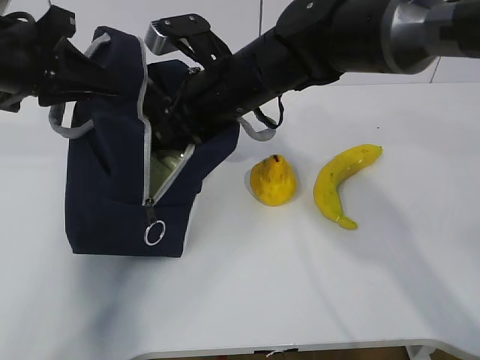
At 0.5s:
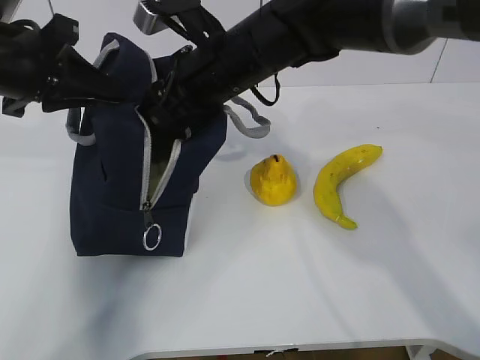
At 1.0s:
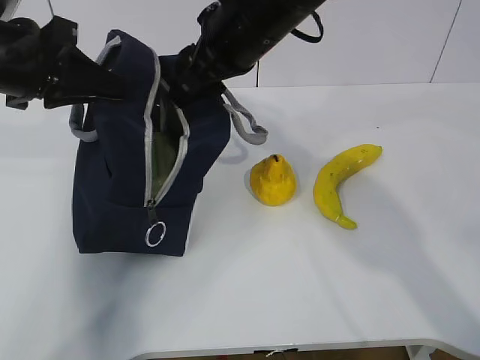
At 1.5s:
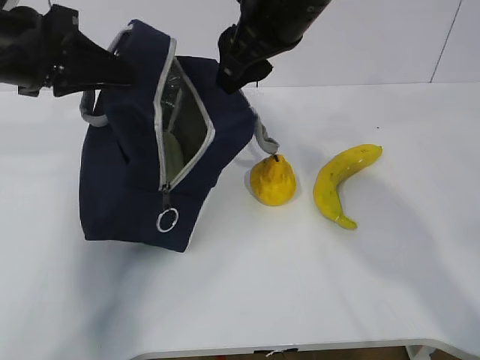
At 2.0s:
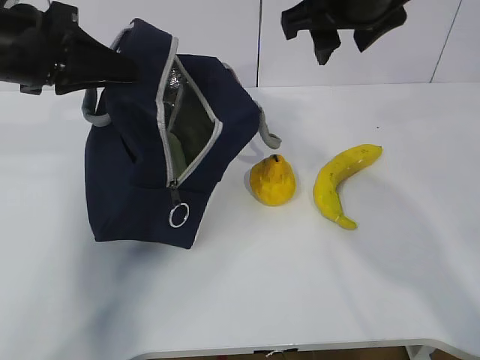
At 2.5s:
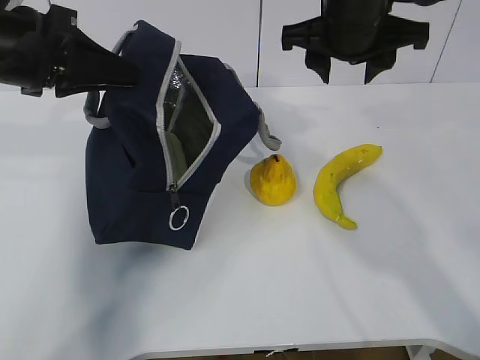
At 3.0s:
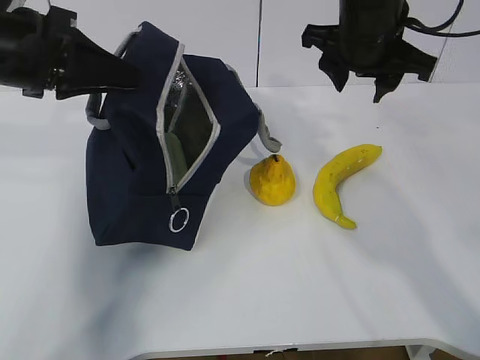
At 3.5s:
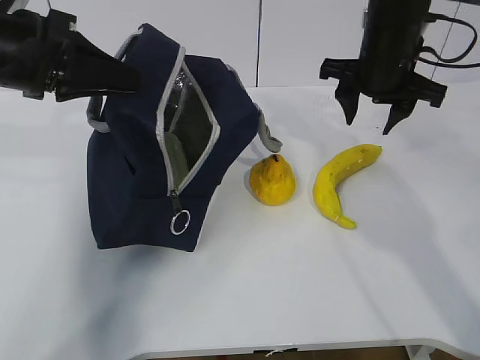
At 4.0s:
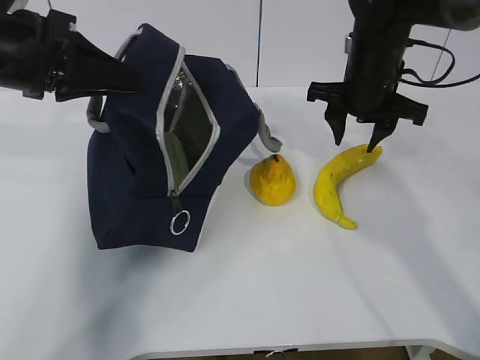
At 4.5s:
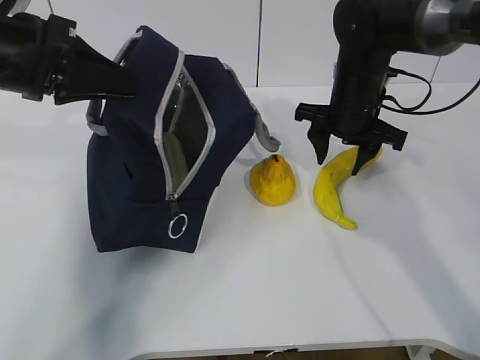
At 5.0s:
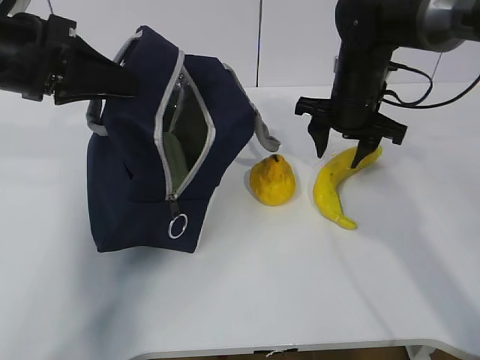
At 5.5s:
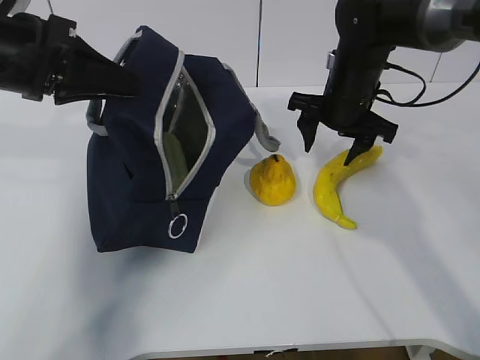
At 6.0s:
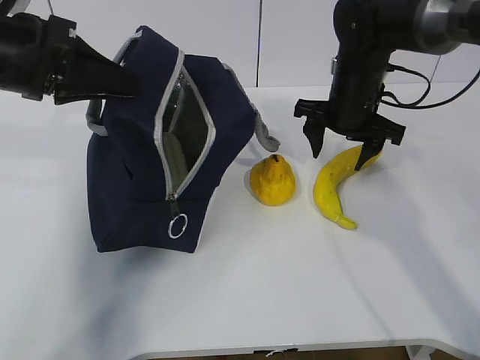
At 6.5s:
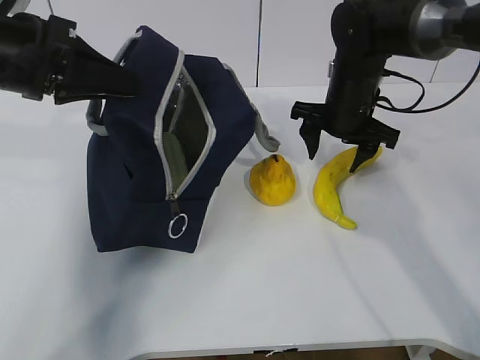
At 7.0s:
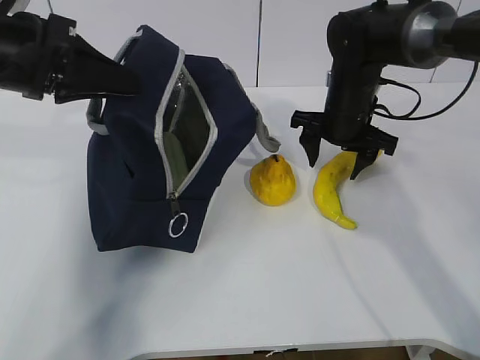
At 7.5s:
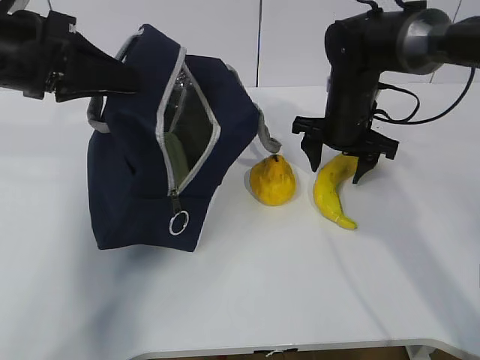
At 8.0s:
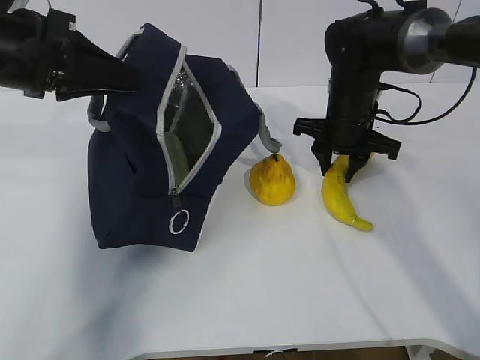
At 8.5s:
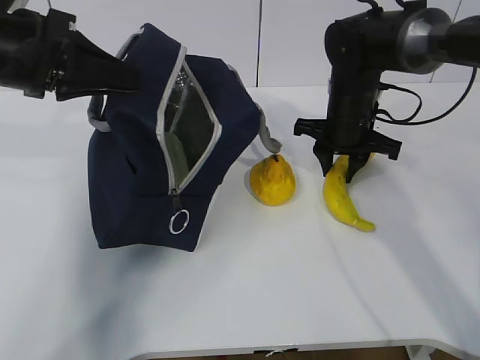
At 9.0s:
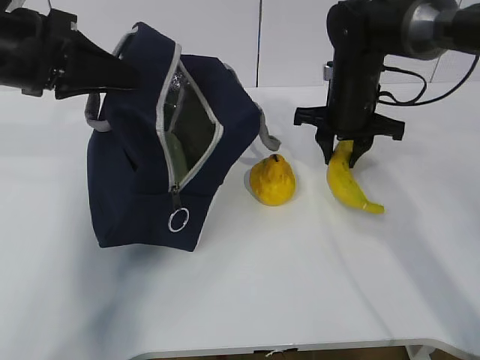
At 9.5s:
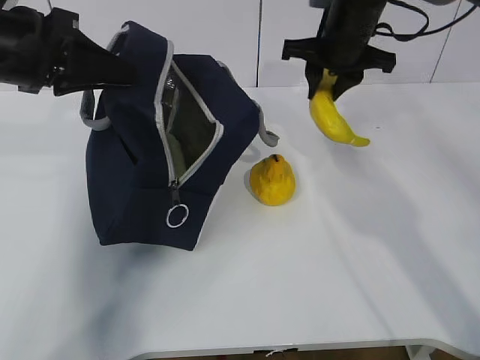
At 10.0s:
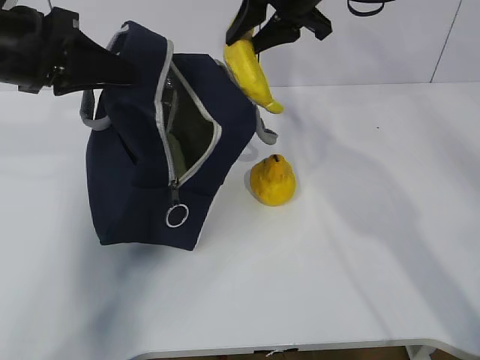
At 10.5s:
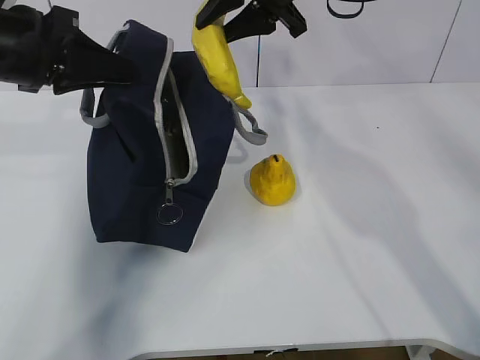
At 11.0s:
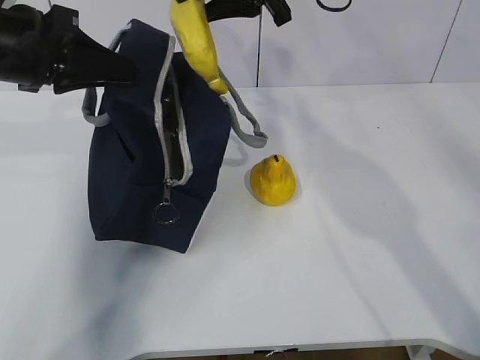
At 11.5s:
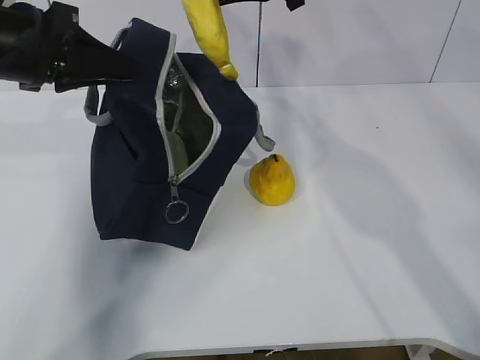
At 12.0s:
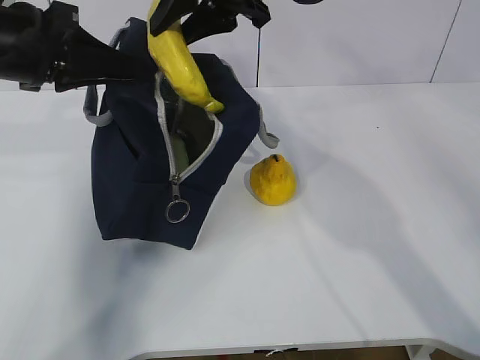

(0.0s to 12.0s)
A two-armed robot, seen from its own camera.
Step, 0.0s - 3.5s: Grab the banana with your right hand.
Step, 4.5s - 8.0s: Place it into the bag with your right hand.
0.0s - 2.0s: The right gripper shifts roughly 15 cm upward and to the right.
2.0s - 4.0s: The right gripper shifts approximately 15 cm downward, forward and to the right.
4.0s - 6.0s: The grippers make only small movements.
6.0s - 8.0s: The right gripper closes its fingers.
8.0s - 10.0s: The right gripper travels upward by some 15 cm.
10.0s - 12.0s: The right gripper heads to the left, covering some 5 cm.

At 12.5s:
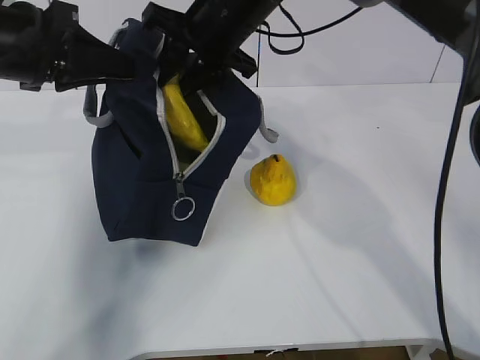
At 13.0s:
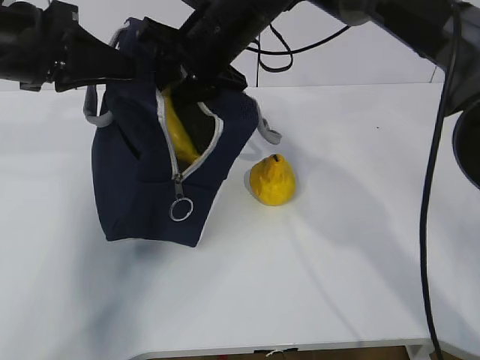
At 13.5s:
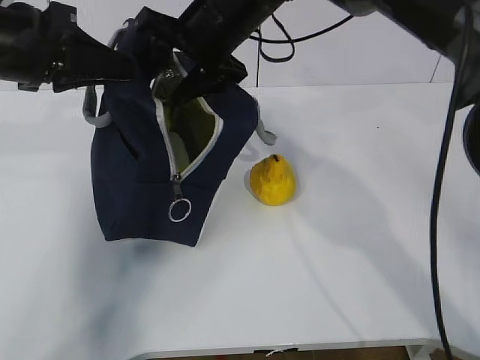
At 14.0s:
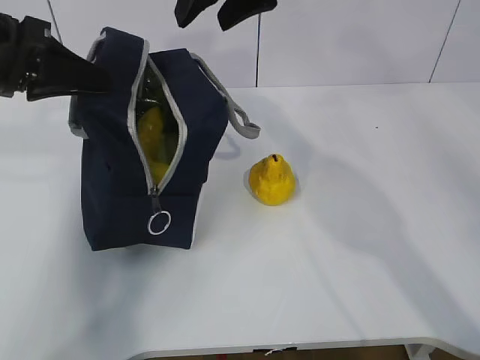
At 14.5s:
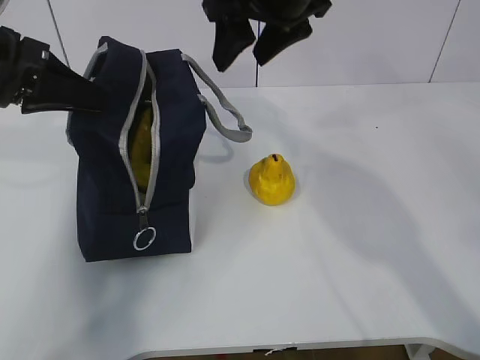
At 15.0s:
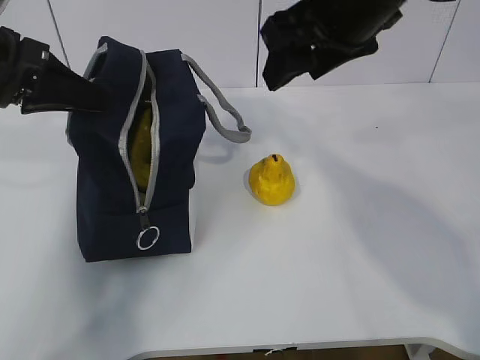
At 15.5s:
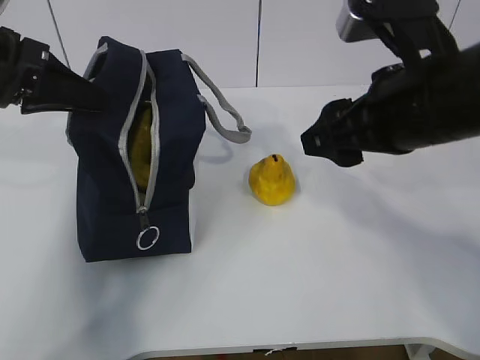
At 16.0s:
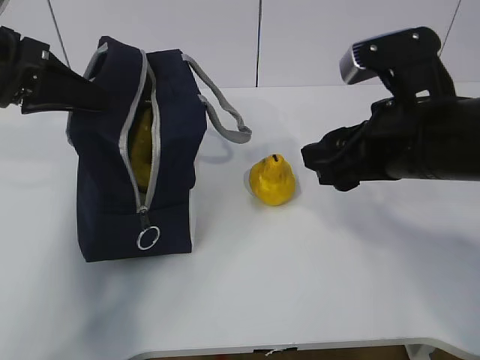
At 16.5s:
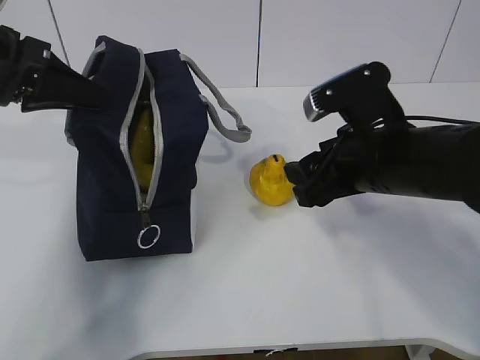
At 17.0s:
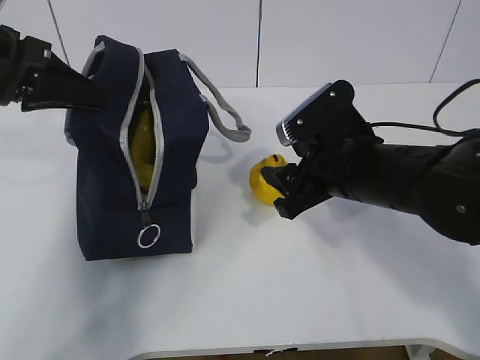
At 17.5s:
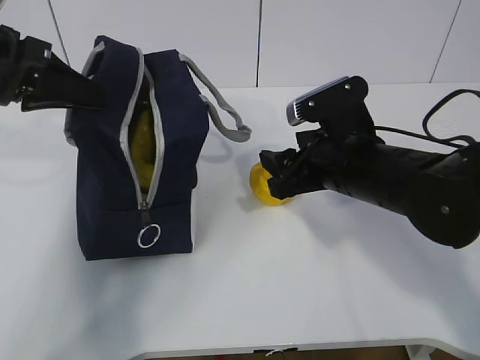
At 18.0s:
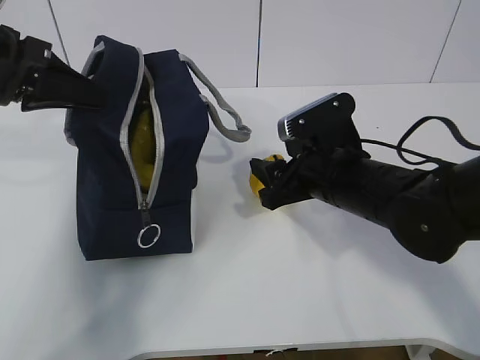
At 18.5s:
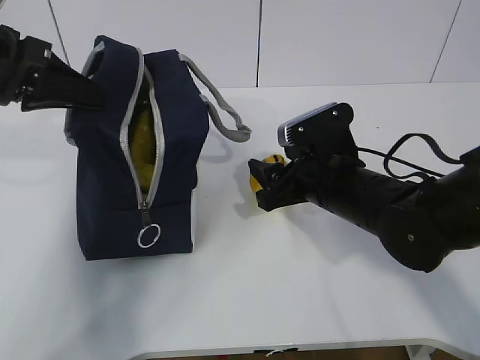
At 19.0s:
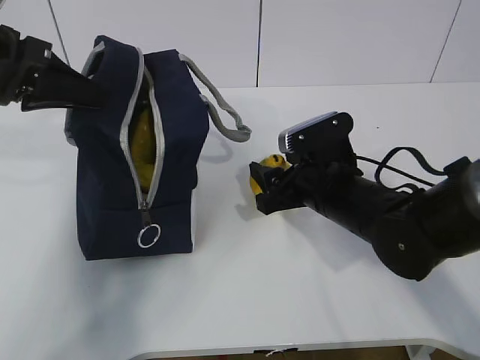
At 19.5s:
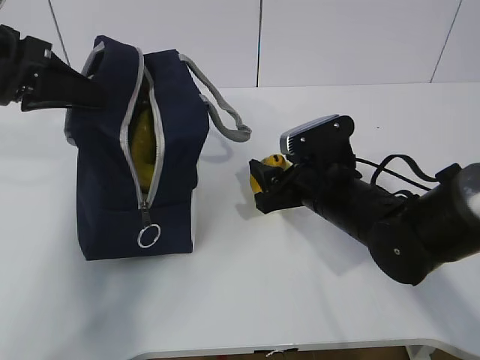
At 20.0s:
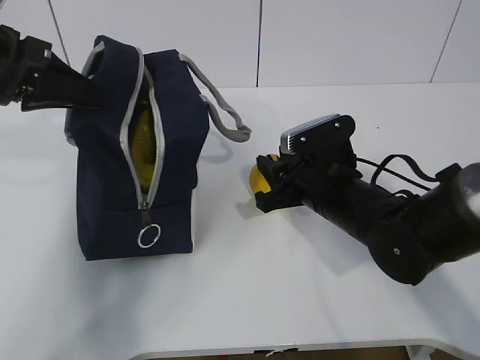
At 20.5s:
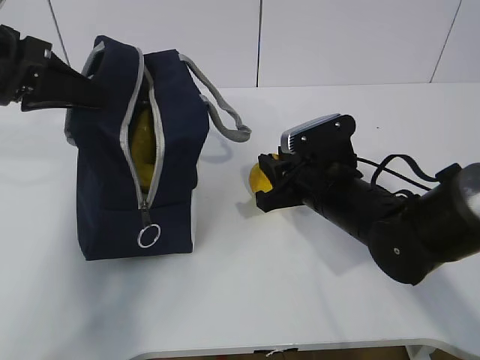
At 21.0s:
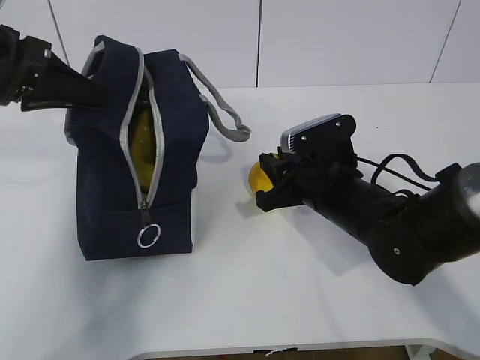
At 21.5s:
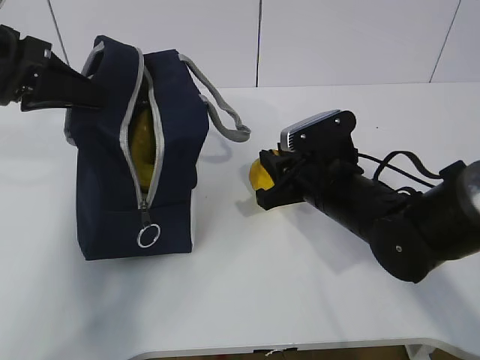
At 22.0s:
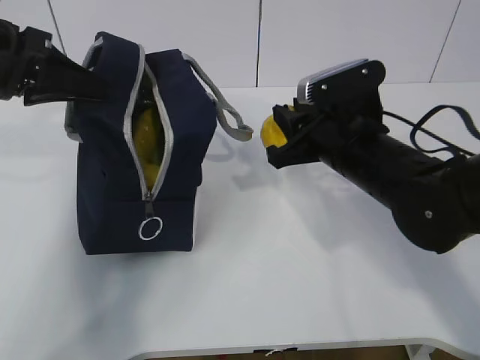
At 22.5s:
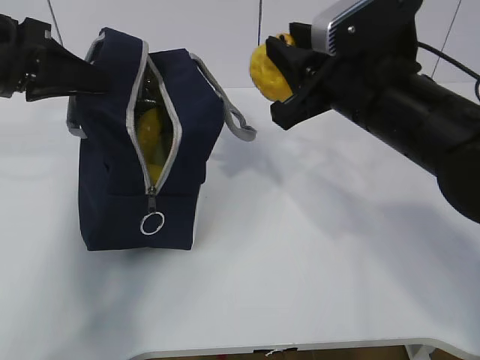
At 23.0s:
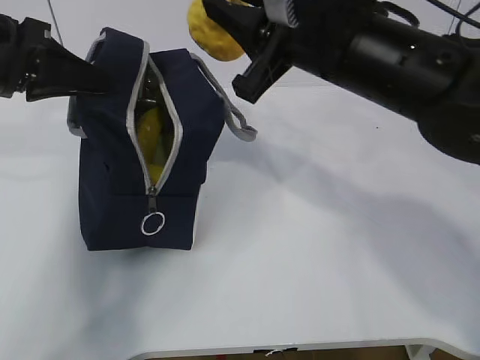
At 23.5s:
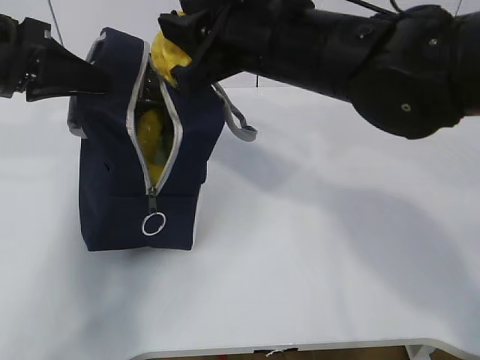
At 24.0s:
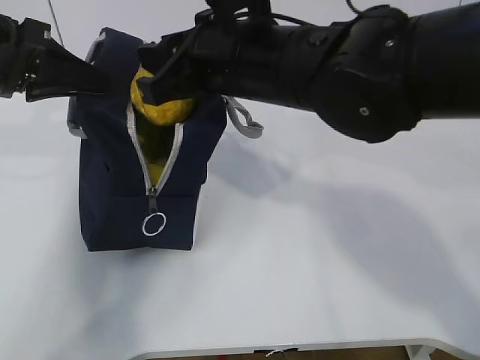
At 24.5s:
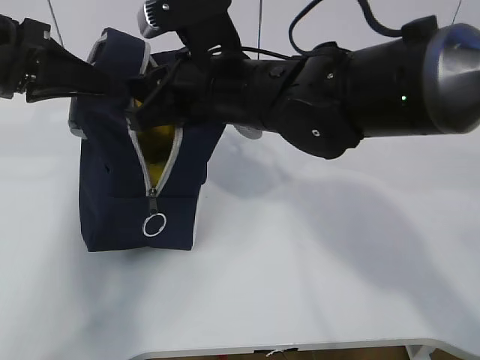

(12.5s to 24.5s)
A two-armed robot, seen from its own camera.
Step, 18.0s - 20.0s: Grab the lunch bag with your right hand.
Step, 20.5s - 24.0s: Move the lunch bag to the right.
12.5s - 14.5s: The right gripper is displaced upward and to the right by approximately 5 cm, and opens up.
14.5s - 16.5s: The right gripper is displaced downward, backward and to the right by roughly 20 cm.
16.5s - 18.5s: The right gripper is displaced downward by about 5 cm.
18.5s - 20.5s: The right gripper closes its fingers.
20.5s - 22.5s: The right gripper moves upward, about 15 cm.
22.5s - 24.5s: The right gripper is displaced to the left by approximately 10 cm.

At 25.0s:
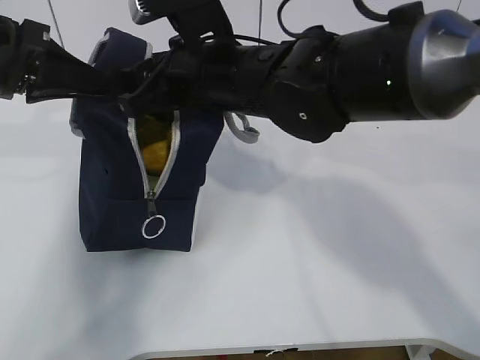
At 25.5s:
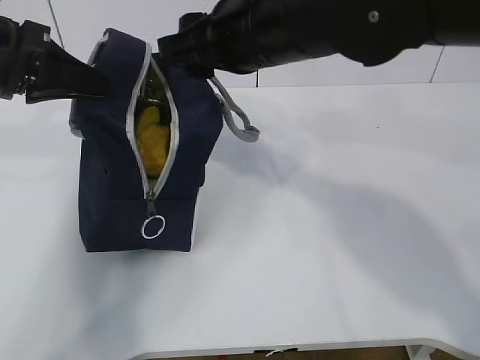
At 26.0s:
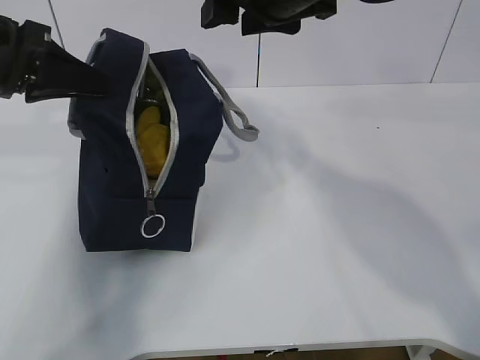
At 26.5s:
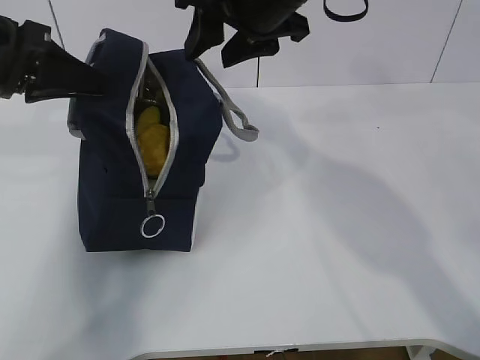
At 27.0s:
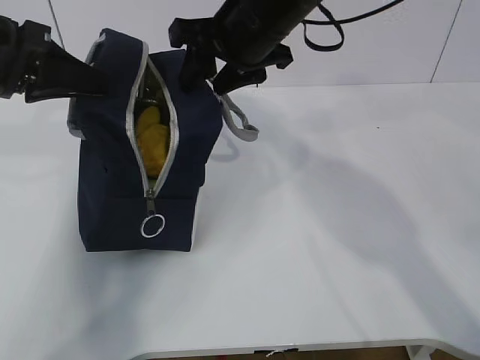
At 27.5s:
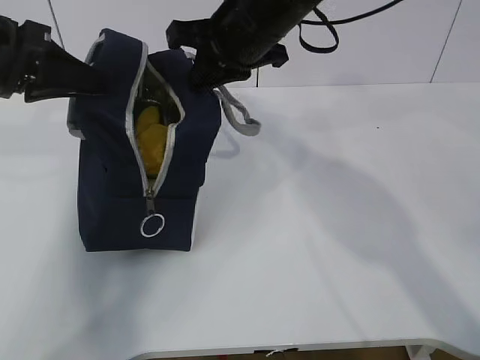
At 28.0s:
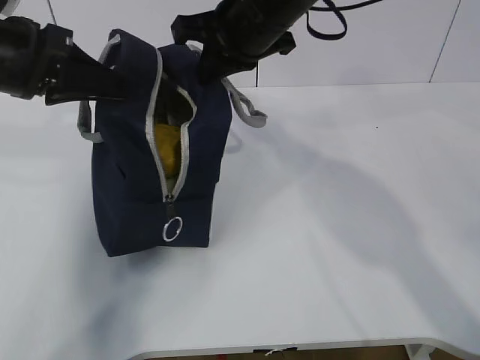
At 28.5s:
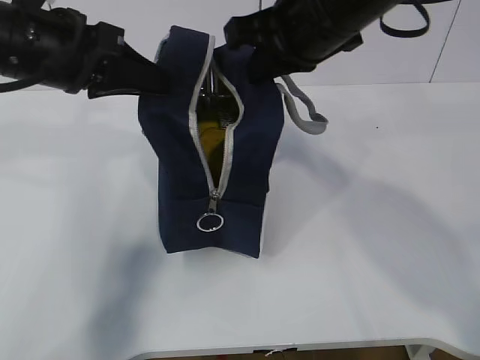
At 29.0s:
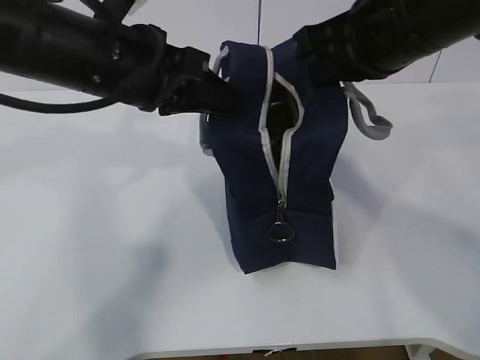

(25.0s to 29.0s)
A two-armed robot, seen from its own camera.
27.0s - 29.0s: The right gripper is displaced to the right and backward by some 15 cm, and closes its fingers; the left gripper shifts about 15 cm to the right.
